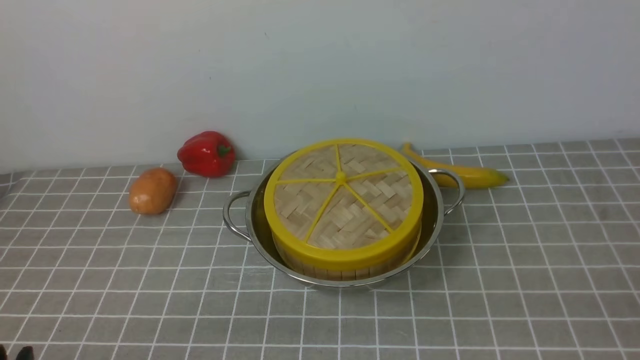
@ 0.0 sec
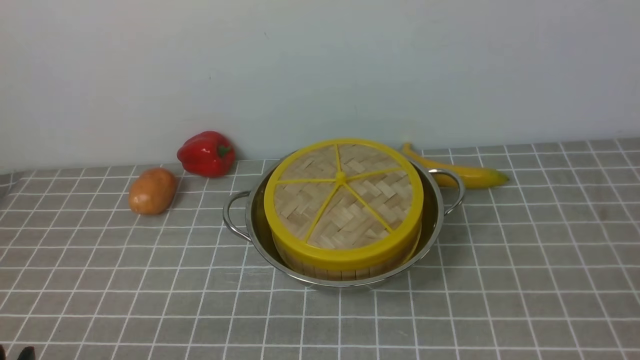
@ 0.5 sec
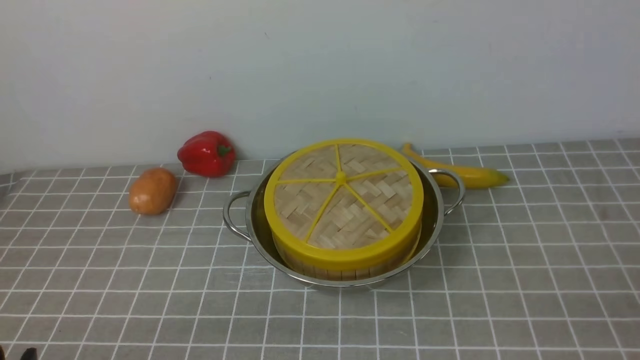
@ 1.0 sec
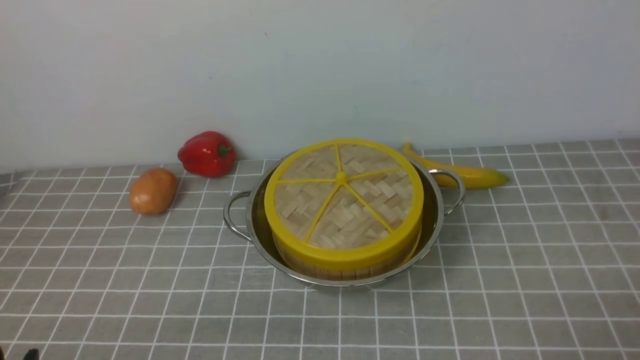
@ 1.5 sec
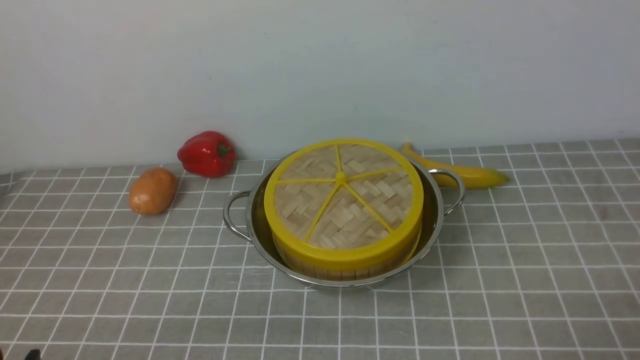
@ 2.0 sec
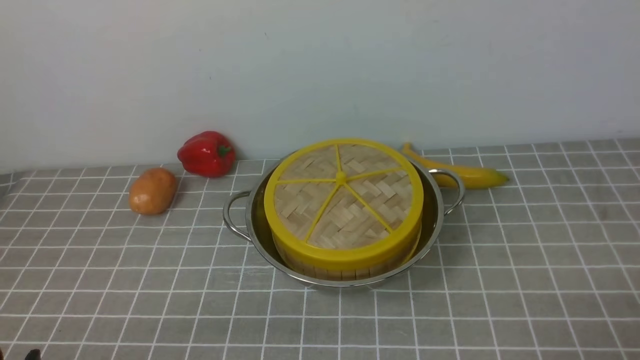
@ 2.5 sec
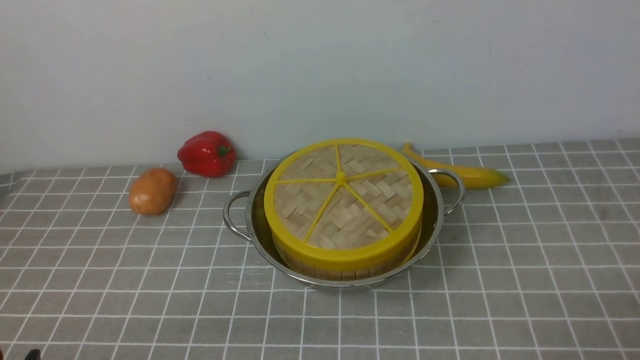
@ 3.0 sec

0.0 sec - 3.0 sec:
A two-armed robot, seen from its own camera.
Task of the whole recording: place the steamer in the pot on the grey tablecloth, and put the lid on the steamer.
1.5 sec - 3.0 sec: Both grippers stay put.
